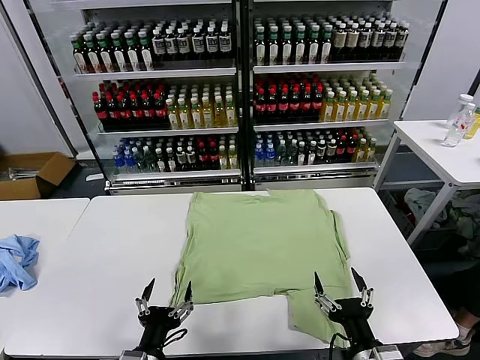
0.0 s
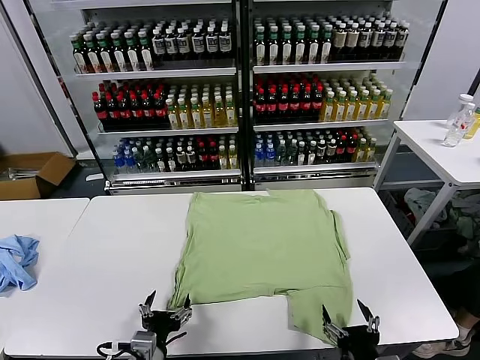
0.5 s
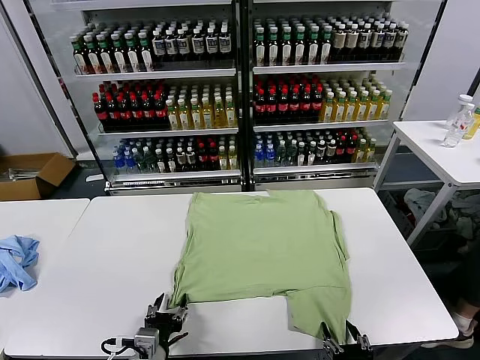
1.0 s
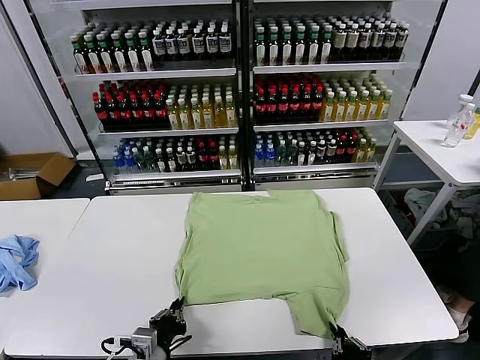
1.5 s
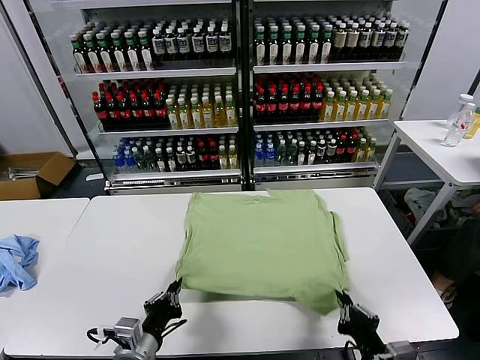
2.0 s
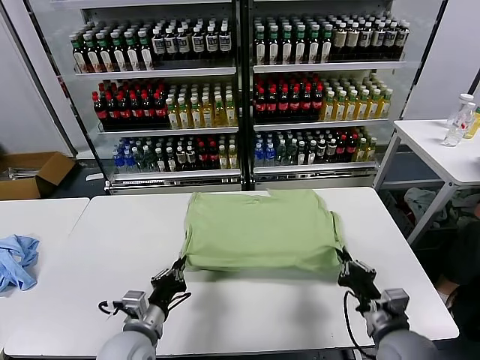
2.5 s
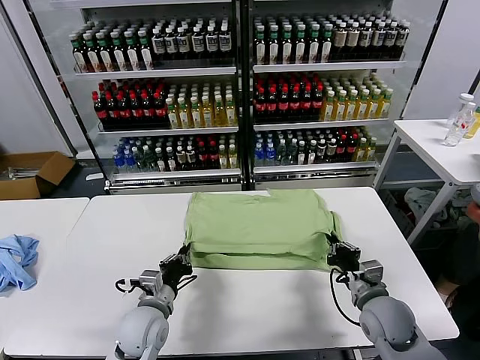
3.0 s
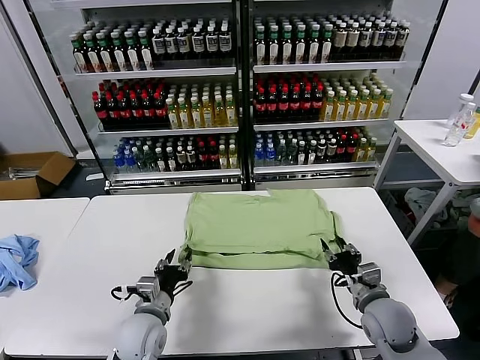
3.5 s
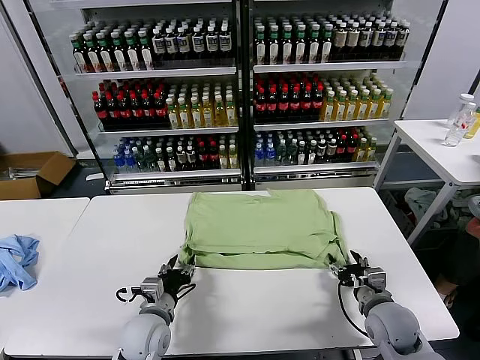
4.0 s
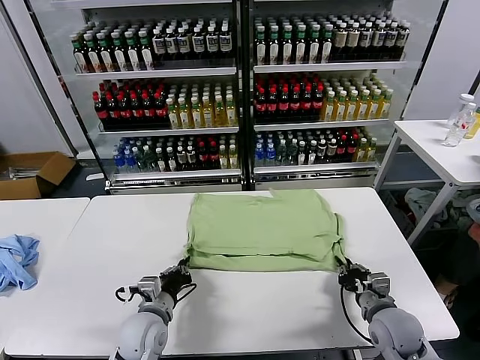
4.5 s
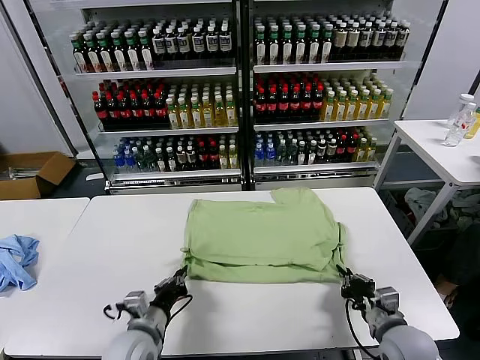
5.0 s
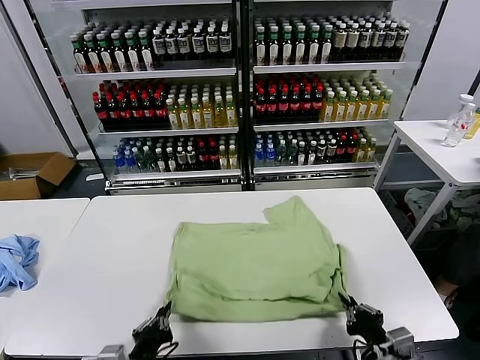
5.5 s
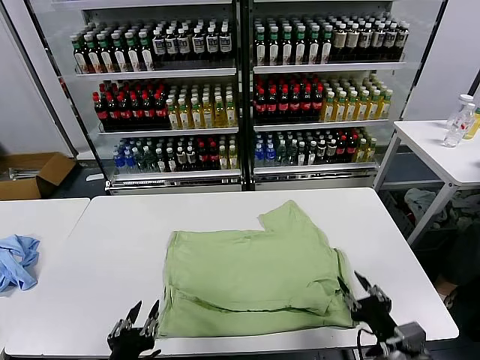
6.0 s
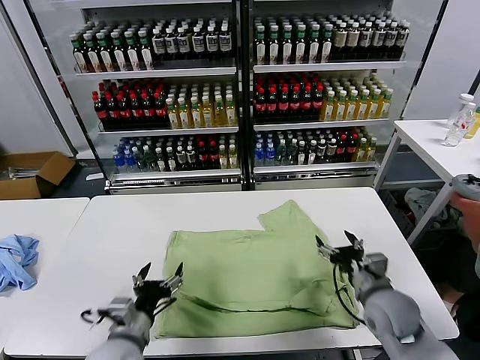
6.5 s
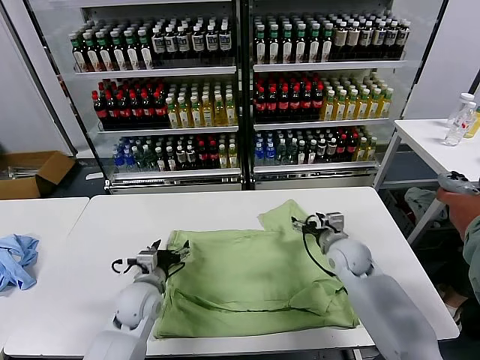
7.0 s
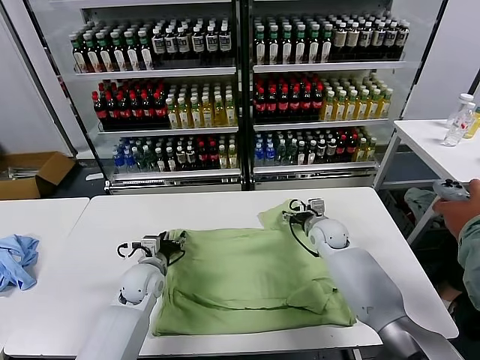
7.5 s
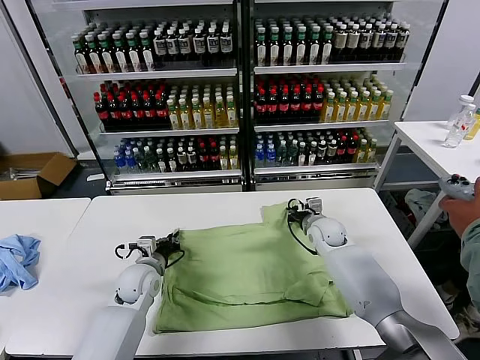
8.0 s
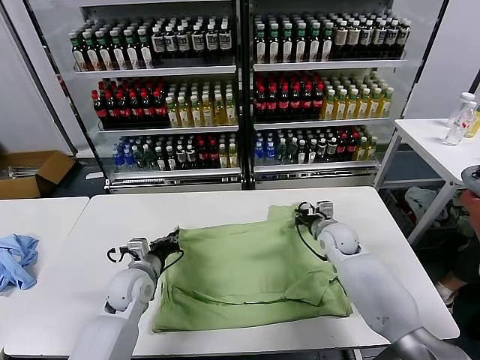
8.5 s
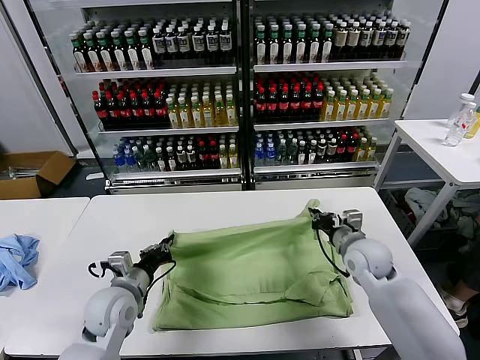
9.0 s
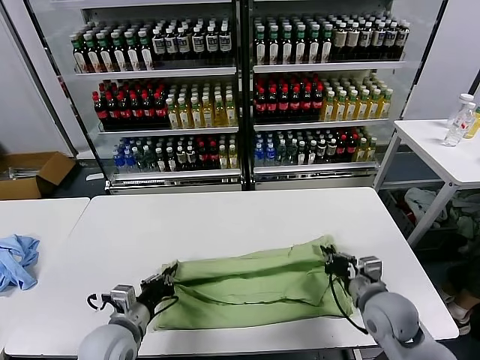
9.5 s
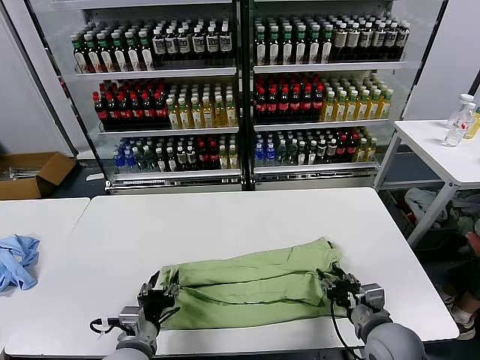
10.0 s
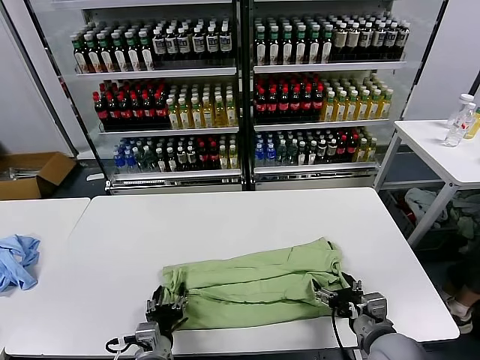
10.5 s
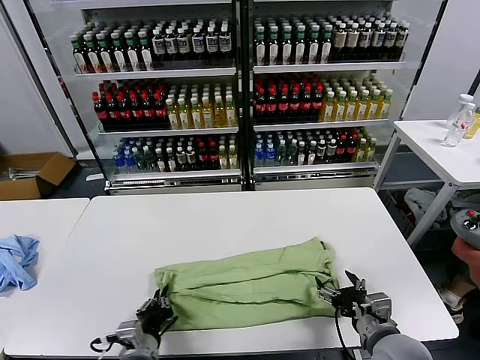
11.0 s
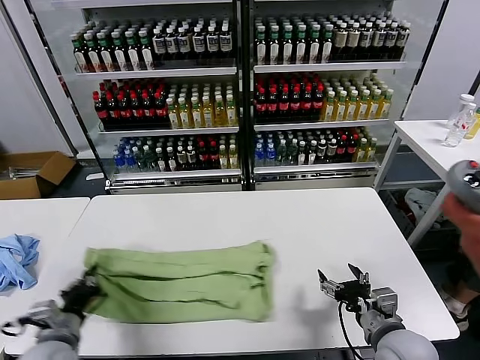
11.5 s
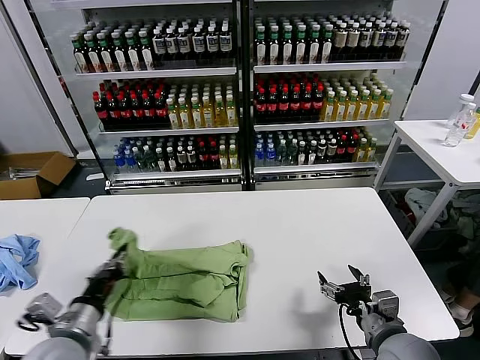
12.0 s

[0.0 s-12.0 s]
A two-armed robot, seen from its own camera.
Task of the whole recording: fold and organize the clothes.
Step, 0.0 to 1.5 s: use both grippers simultaneously to clamp the lower edge of the clothing fabric.
Step, 2.0 to 3.0 s: use both grippers to drag the lower edge of the fabric forward and fold it over the upper edge.
Step, 3.5 to 5.5 s: Drag the clothes downward with both gripper.
Step, 6.0 to 8.0 s: use both grippers simultaneously to clamp the upper edge of the clothing fabric.
Step, 8.5 to 9.5 s: use both grippers to drag the upper edge of the fabric backward and fold it over the lower edge.
Step, 10.0 to 10.5 s: use the left gripper to clamp the left edge of the fabric.
2.0 to 4.0 s: Both grippers travel together forward, some 10 cm. The right gripper opens, while the left gripper opens up.
4.0 to 6.0 s: The two grippers go approximately 20 cm backward and upward. The left gripper closes, then opens again; the right gripper closes, then reopens.
6.0 to 8.0 s: The grippers both shift forward by roughly 35 cm. The right gripper closes up. The left gripper opens and closes again.
8.0 to 10.0 s: The right gripper moves backward, about 30 cm, and opens its fingers. Meanwhile the left gripper moves backward, approximately 20 cm, and opens its fingers.
10.0 to 12.0 s: The right gripper opens its fingers. Meanwhile the left gripper goes about 15 cm to the left and upward, and closes up.

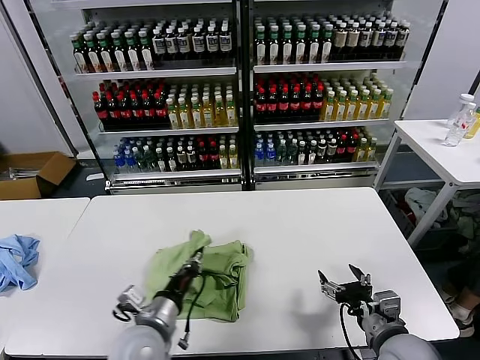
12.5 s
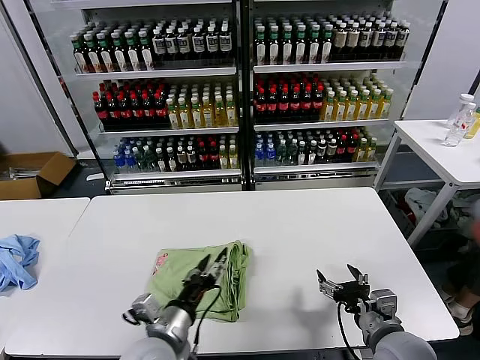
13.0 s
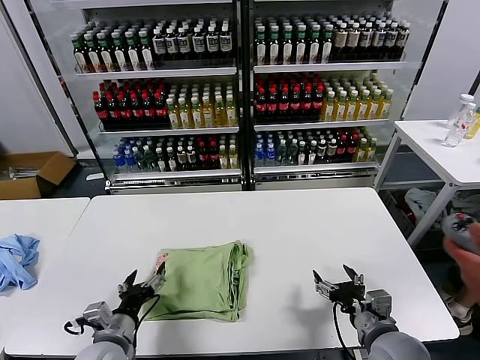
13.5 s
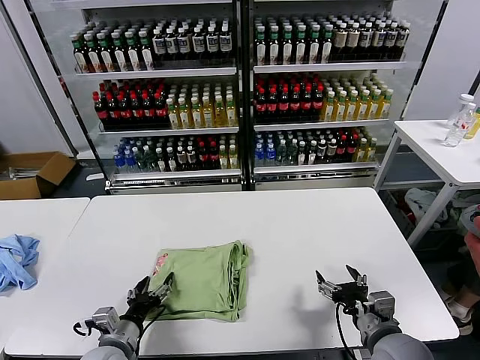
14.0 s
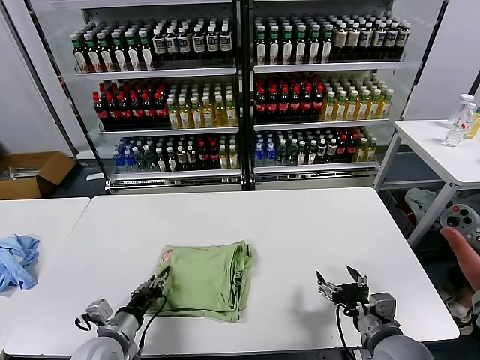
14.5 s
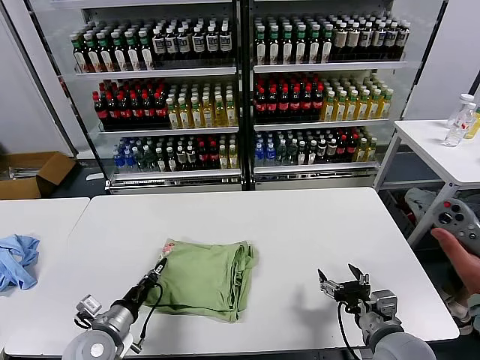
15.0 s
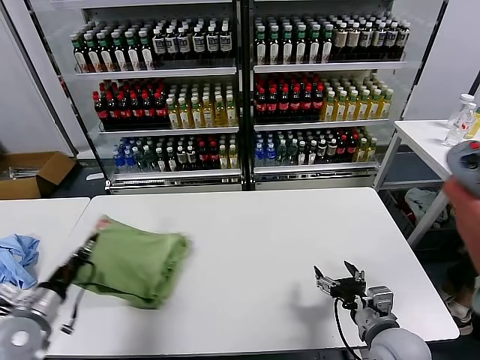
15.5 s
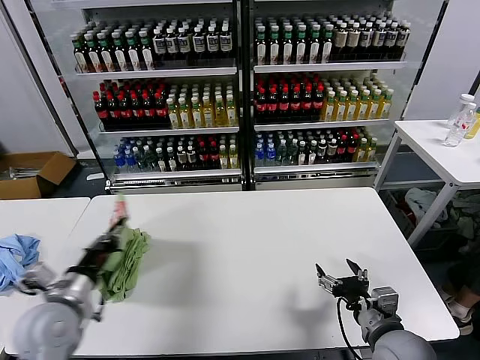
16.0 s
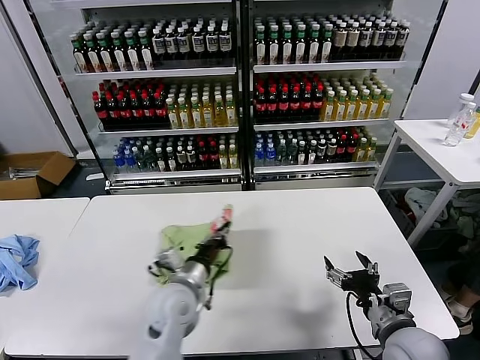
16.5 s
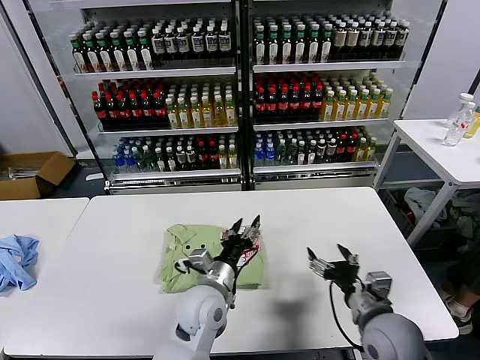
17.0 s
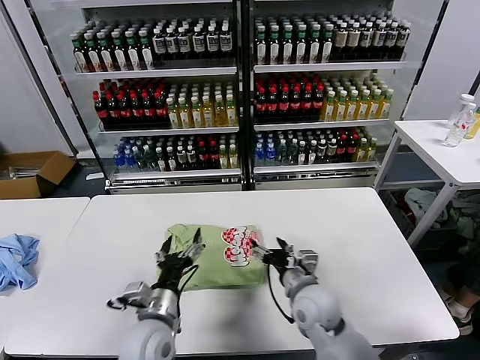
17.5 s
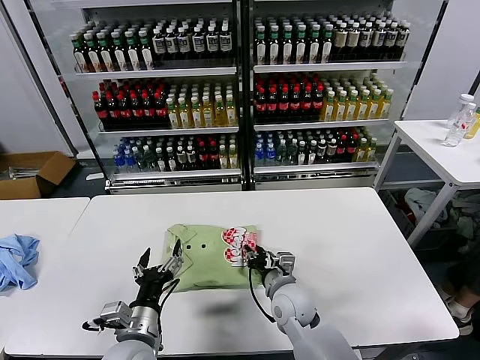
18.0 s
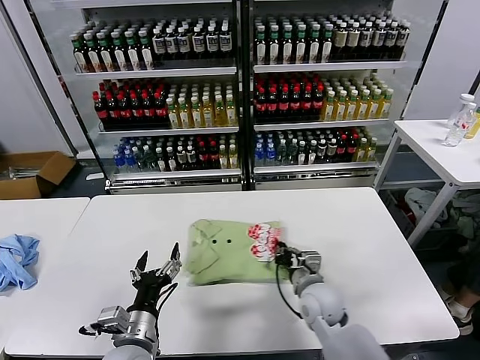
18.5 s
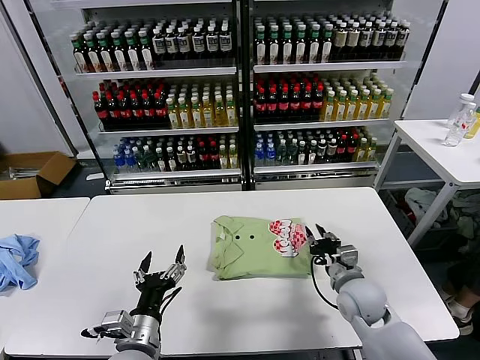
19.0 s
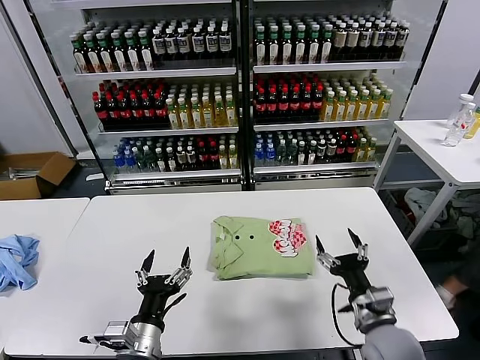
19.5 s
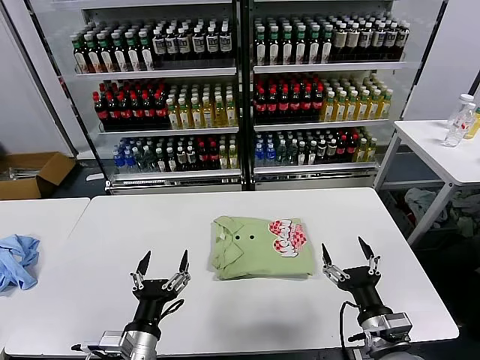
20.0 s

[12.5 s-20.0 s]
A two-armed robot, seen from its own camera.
Task of the whole recording: fold and organize the clothes.
Step, 13.5 to 16.5 s: Flip the folded clothes over with left gripper.
Step, 17.0 to 18.5 s: Drag the clothes to the center of the table.
12.5 to 14.5 s: The left gripper shifts some 10 cm to the left and downward, and opens, then closes once more.
14.5 to 16.5 s: The left gripper moves to the right, forward and upward, some 15 cm, and closes its fingers.
16.5 to 18.0 s: The left gripper travels backward by roughly 10 cm, travels to the right and back again, about 10 cm each way, and opens its fingers, while the right gripper goes roughly 25 cm to the left, forward and downward, and closes.
18.0 to 20.0 s: The left gripper goes roughly 5 cm backward. The right gripper goes some 20 cm to the right and backward, and opens.
